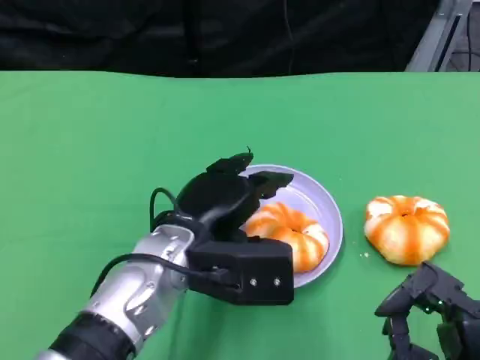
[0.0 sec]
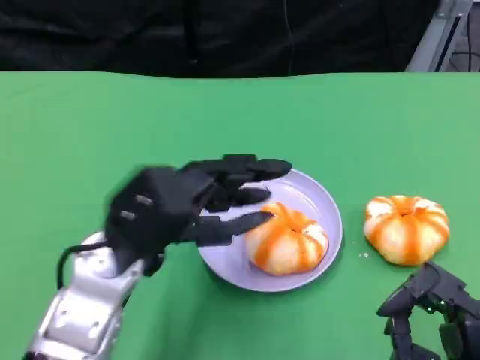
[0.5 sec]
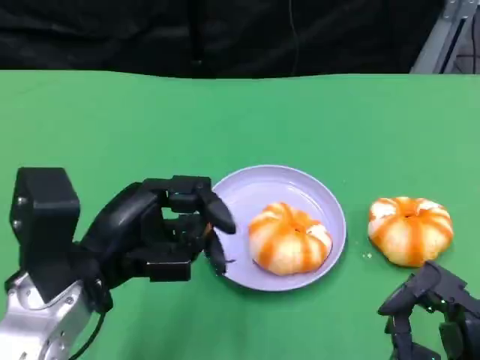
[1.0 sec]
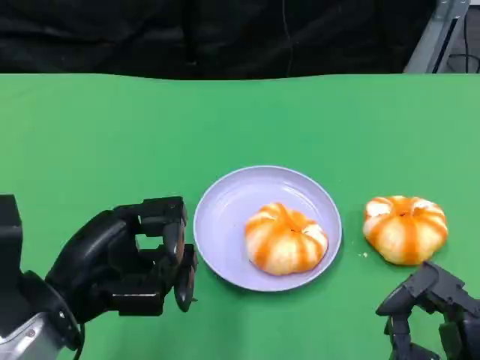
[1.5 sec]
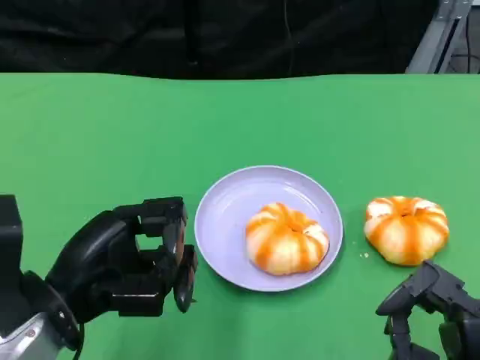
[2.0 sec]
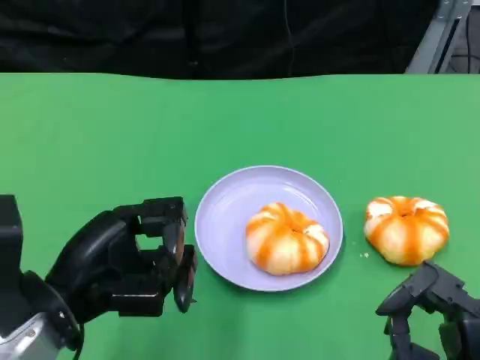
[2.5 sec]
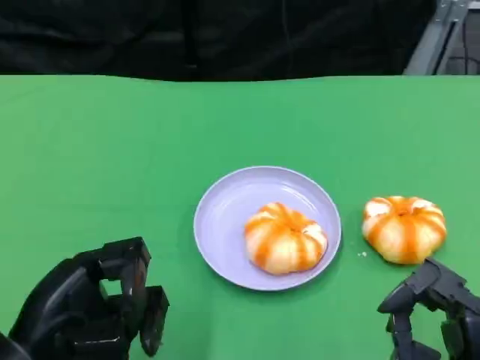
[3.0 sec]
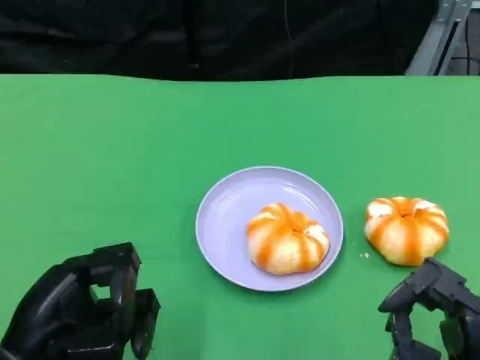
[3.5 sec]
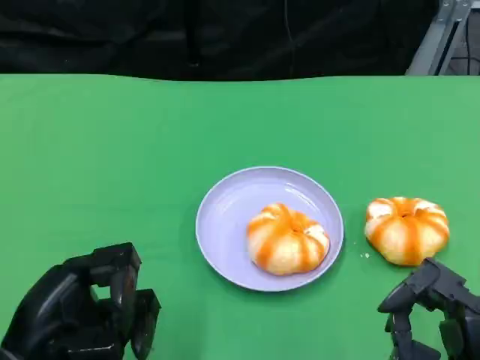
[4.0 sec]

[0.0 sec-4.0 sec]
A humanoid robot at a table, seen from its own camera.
Task of the whole recording: Grasp the bread from the table and place it into the plate.
0.0 sec to 2.0 sec: The left hand is displaced to the left and backward by approximately 15 cm.
2.0 sec to 4.0 sec: The left hand ends up some 5 cm from where it was.

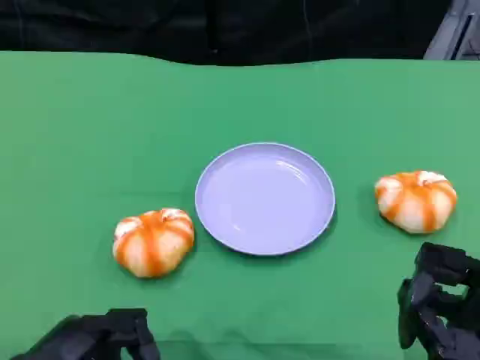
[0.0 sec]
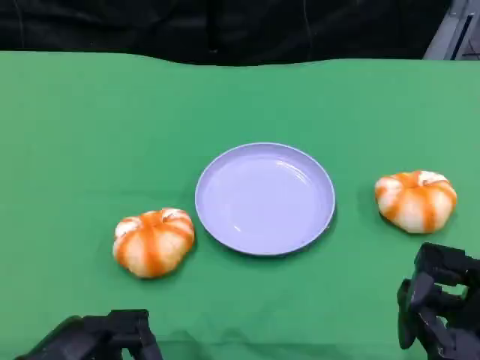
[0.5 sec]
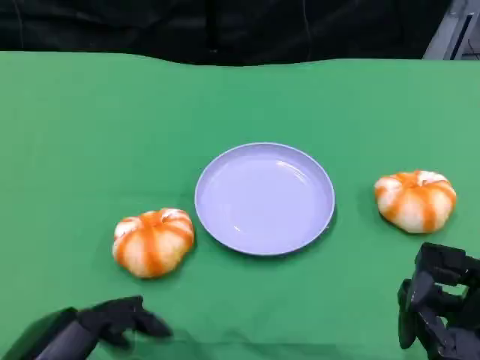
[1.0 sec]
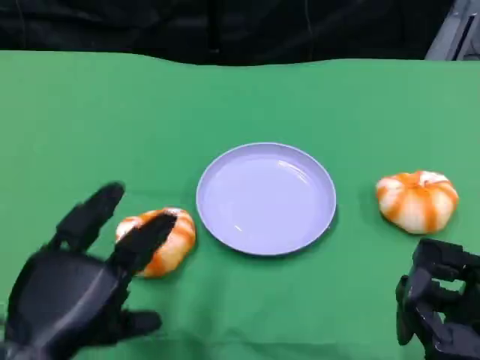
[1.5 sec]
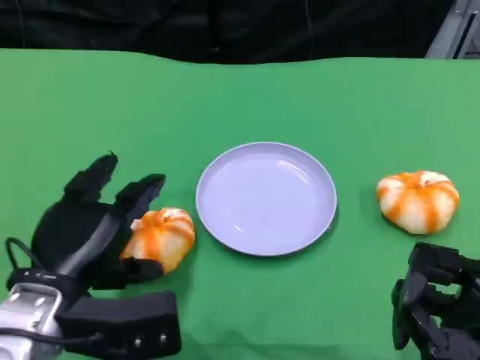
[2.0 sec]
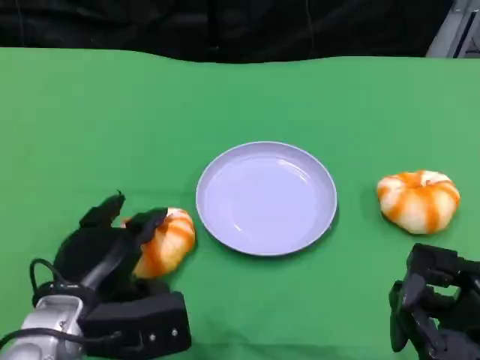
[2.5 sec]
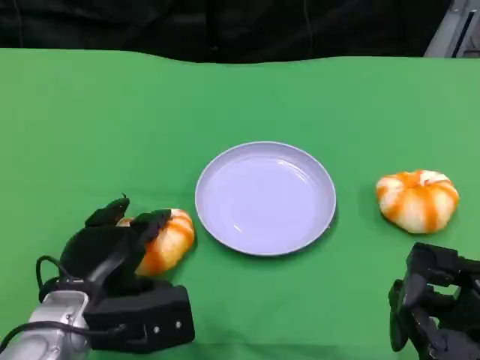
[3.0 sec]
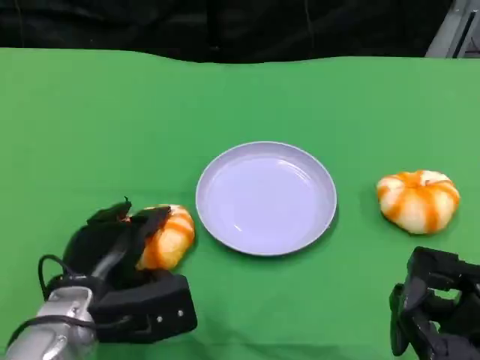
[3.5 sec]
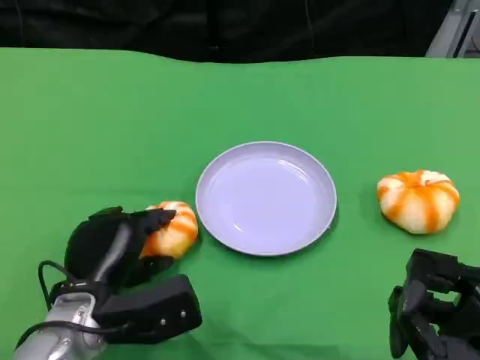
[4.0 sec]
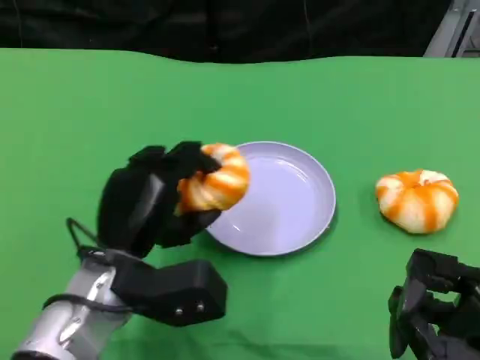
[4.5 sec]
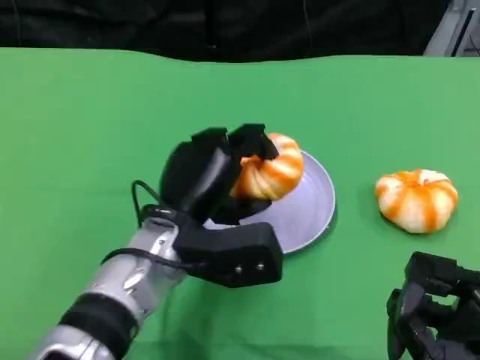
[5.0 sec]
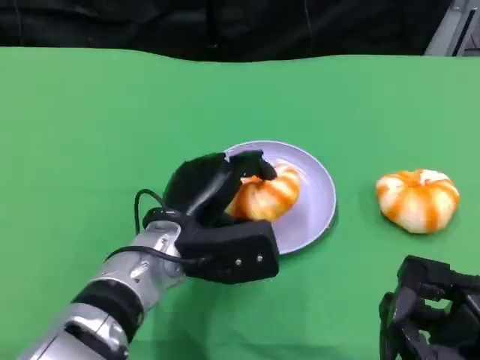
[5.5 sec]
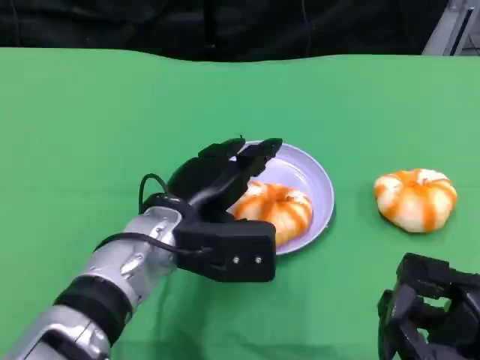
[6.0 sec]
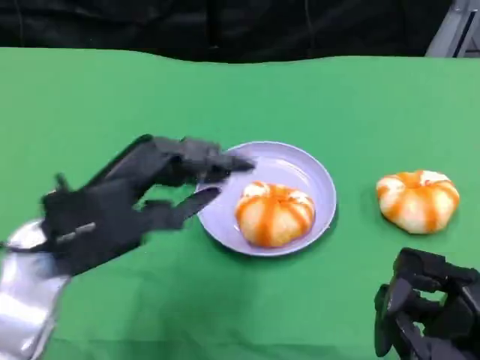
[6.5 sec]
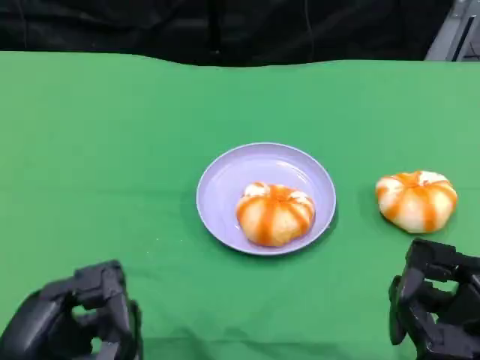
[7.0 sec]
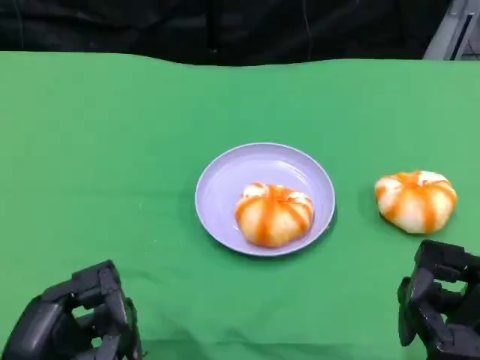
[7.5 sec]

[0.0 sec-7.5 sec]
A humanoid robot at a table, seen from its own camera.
Task of the whole recording: Grasp the bread from the table and place it into the plate.
0.0 sec to 2.0 sec: The left hand shifts approximately 10 cm forward.
2.0 sec to 4.0 sec: The left hand is displaced downward by roughly 5 cm.
4.0 sec to 5.5 sec: The left hand is displaced to the right by about 10 cm.
5.5 sec to 7.5 sec: The left hand shifts roughly 20 cm backward and to the left.

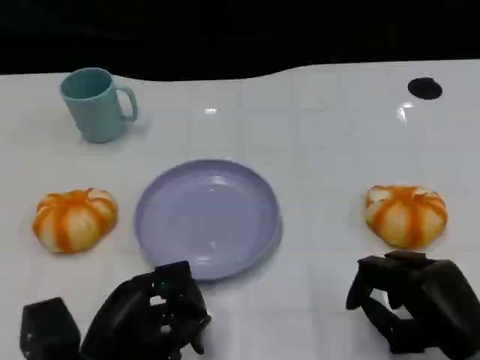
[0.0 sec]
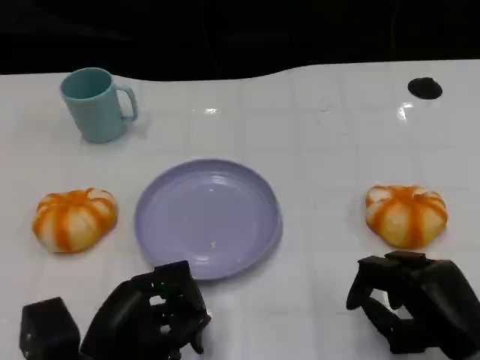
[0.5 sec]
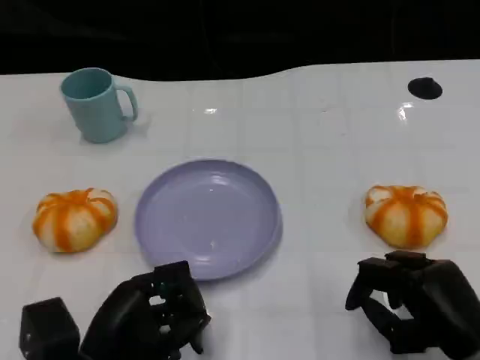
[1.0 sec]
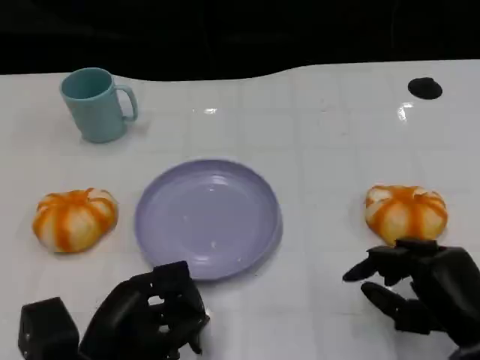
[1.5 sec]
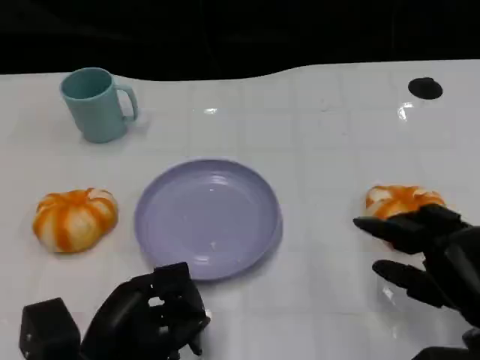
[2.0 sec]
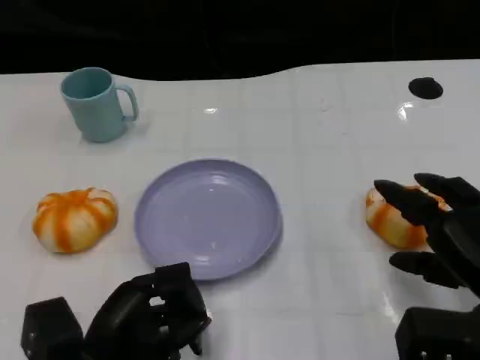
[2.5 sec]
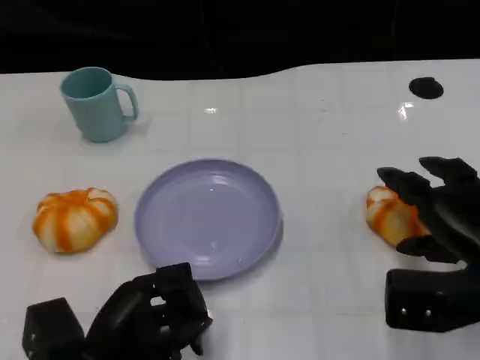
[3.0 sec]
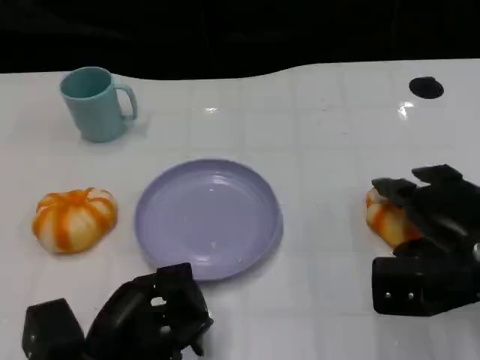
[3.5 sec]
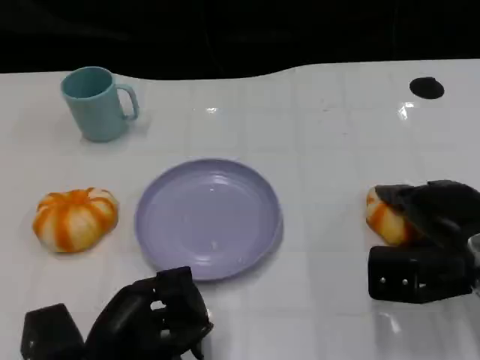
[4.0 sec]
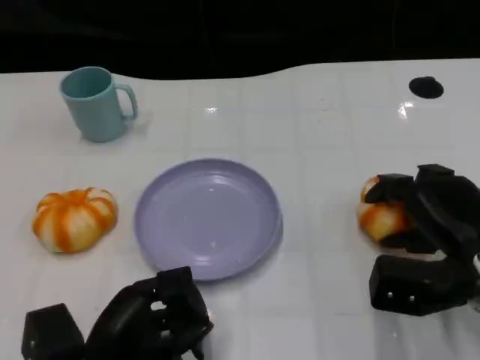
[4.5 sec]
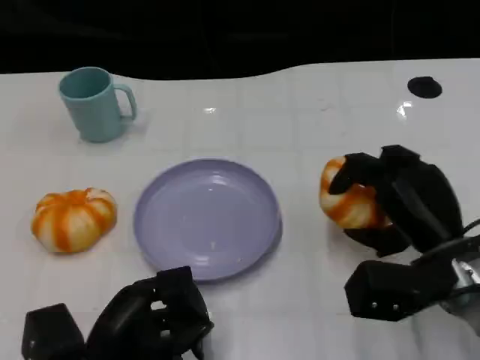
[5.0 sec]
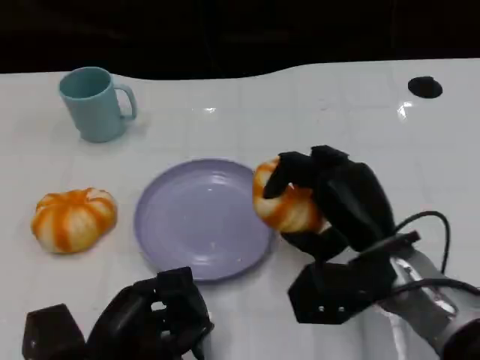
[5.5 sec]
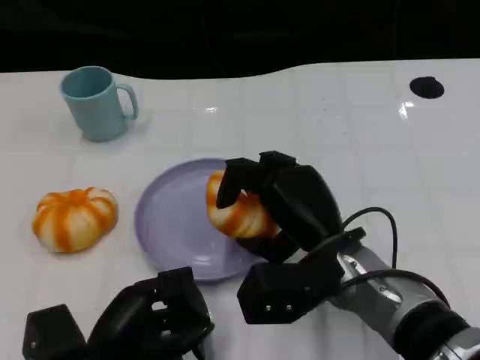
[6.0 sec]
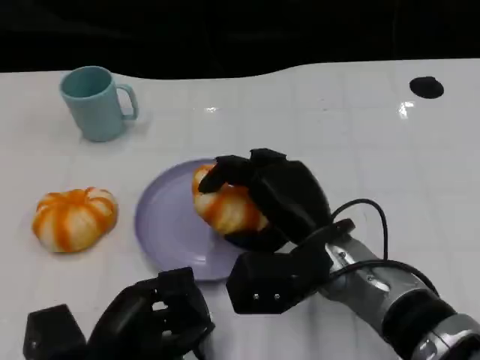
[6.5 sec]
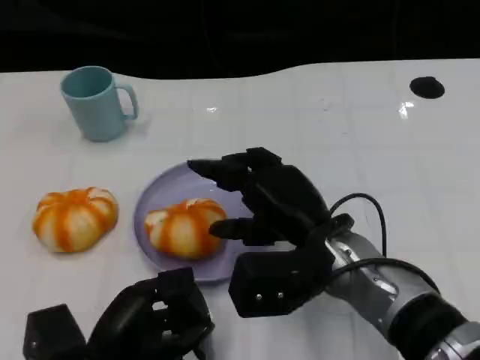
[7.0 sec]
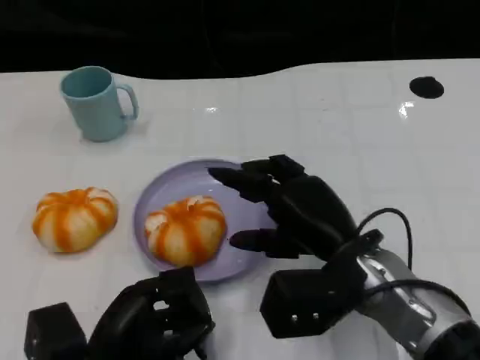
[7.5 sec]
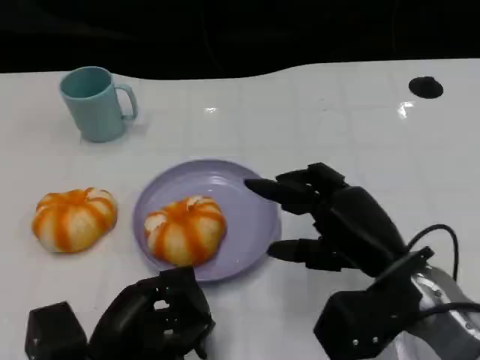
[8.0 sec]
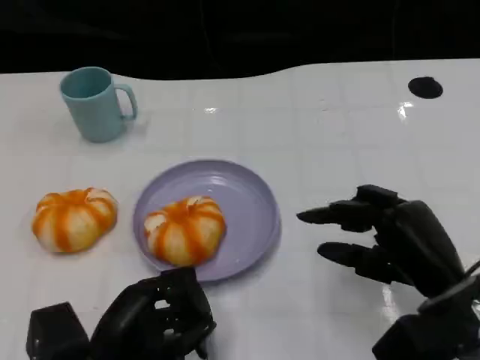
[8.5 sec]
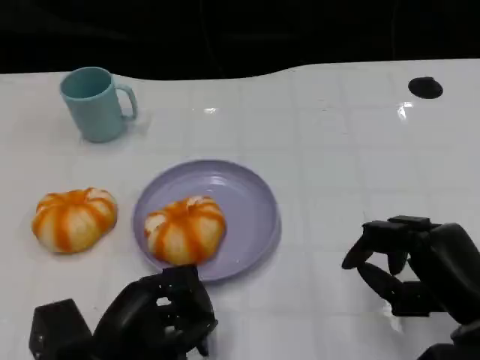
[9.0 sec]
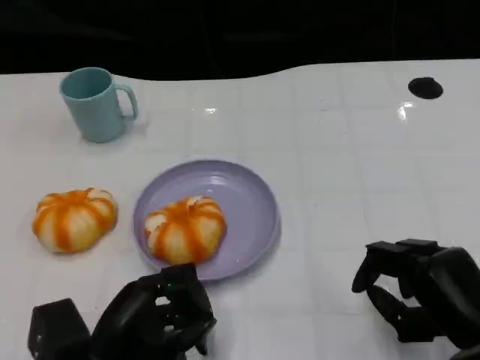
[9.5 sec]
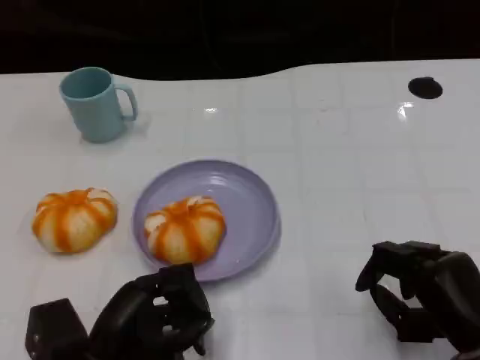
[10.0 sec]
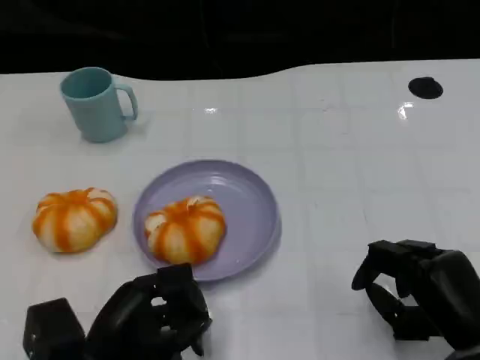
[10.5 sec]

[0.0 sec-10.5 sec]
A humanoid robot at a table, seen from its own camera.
Task of the whole recording: Grasp the bread from the table and place it into the plate.
0.0 sec to 2.0 sec: There are only small adjustments of the hands.
2.0 sec to 4.0 sec: The right hand moves forward, approximately 10 cm.
4.0 sec to 6.5 sec: The right hand goes roughly 15 cm to the left.
6.5 sec to 8.5 sec: The right hand goes some 15 cm to the right.
8.5 sec to 10.5 sec: The right hand ends up some 5 cm from where it was.

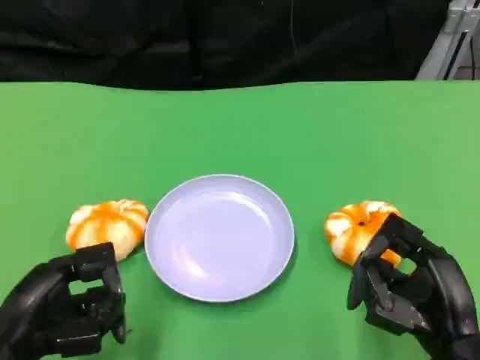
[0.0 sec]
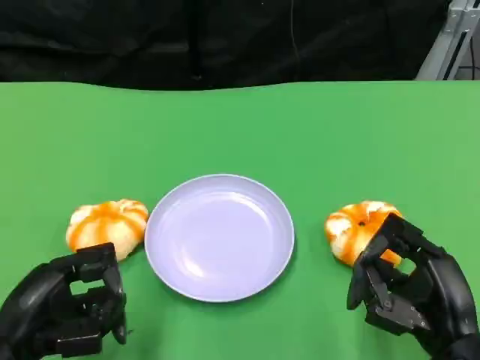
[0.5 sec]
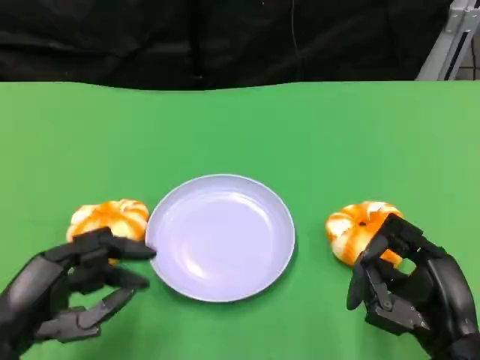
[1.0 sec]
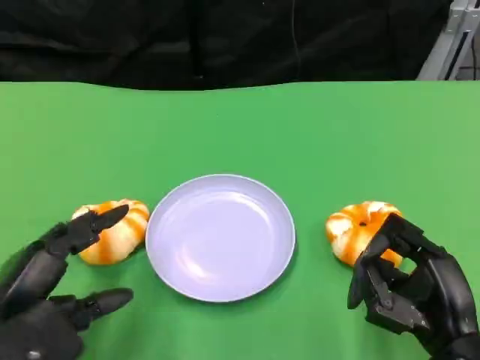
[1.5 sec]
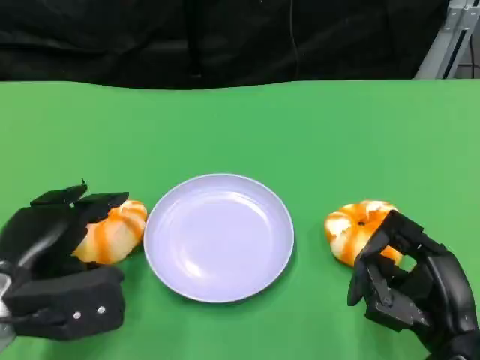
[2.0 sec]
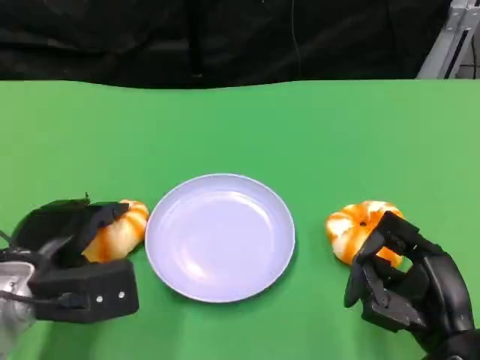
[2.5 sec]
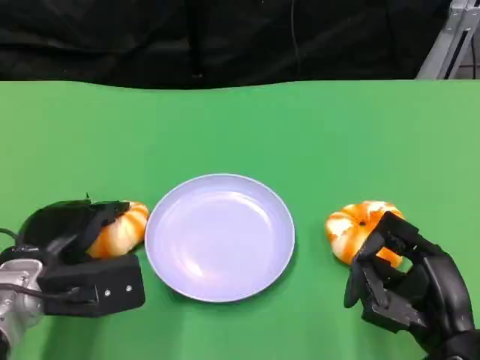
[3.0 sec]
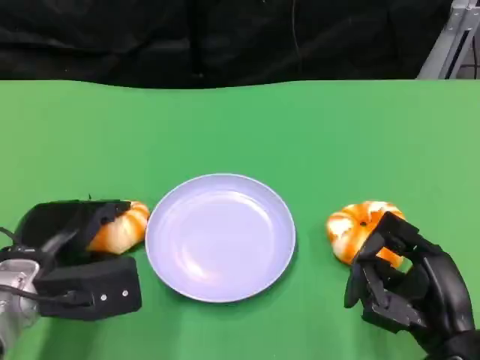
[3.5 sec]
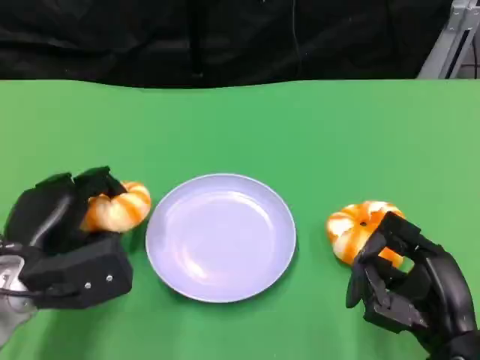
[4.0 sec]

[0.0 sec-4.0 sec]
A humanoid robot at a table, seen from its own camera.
Task of the whole recording: Grasp the bread from the table and place it into the plate.
0.0 sec to 2.0 sec: The left hand is displaced forward by about 5 cm.
2.0 sec to 4.0 sec: The hands move only a little.
